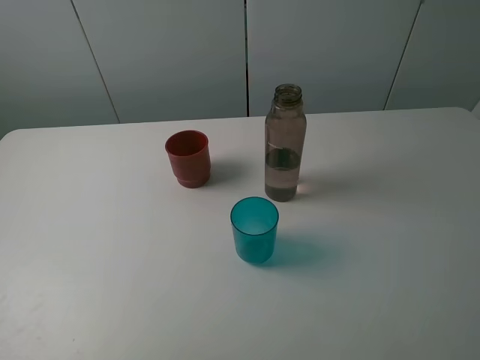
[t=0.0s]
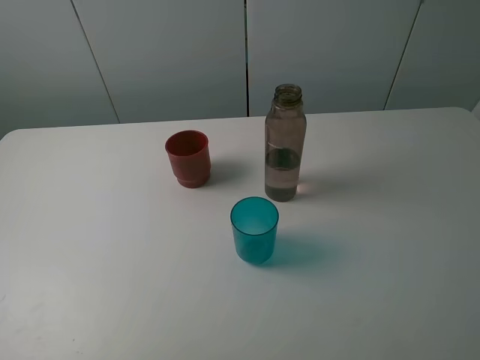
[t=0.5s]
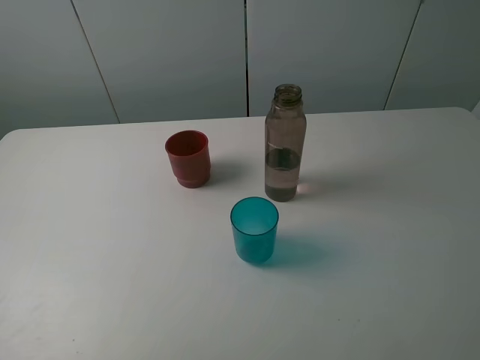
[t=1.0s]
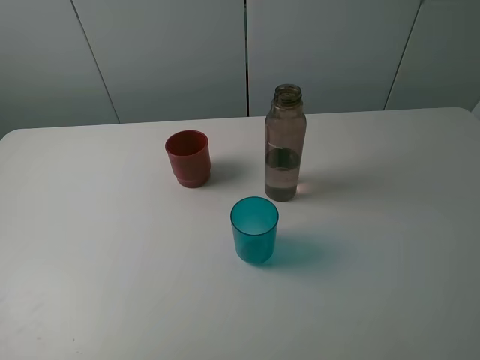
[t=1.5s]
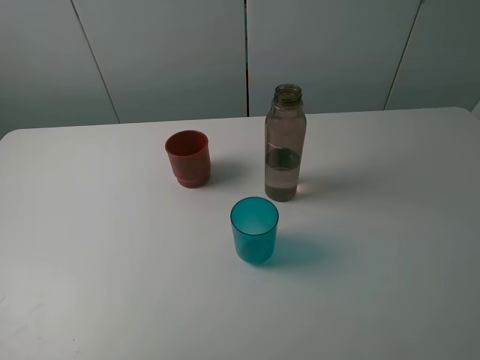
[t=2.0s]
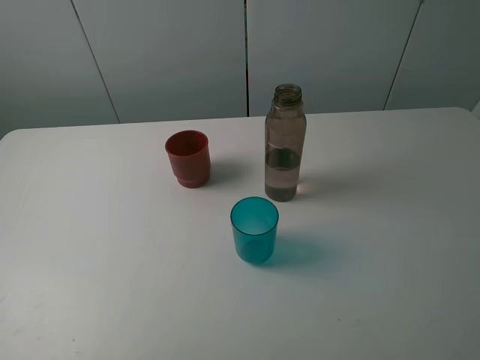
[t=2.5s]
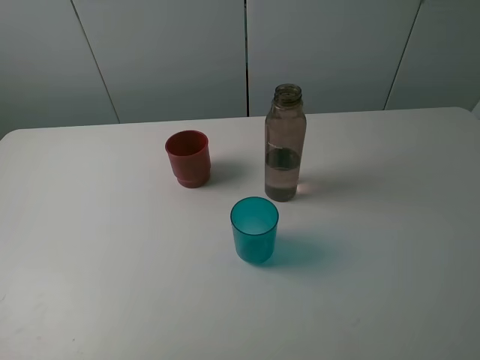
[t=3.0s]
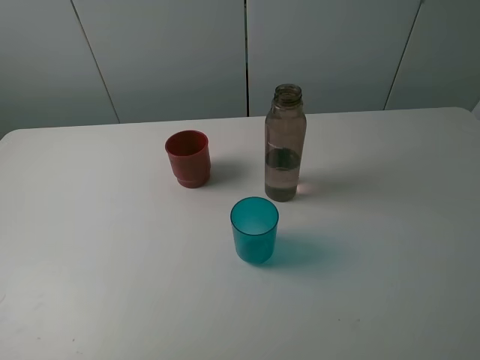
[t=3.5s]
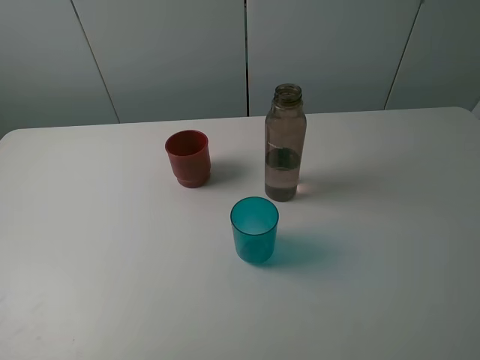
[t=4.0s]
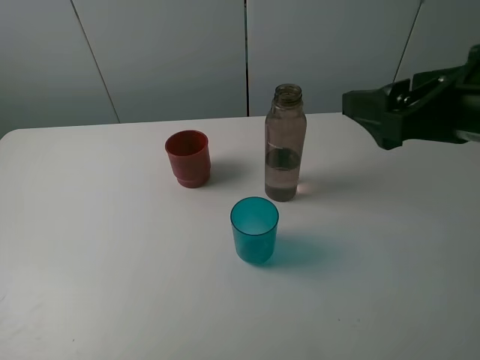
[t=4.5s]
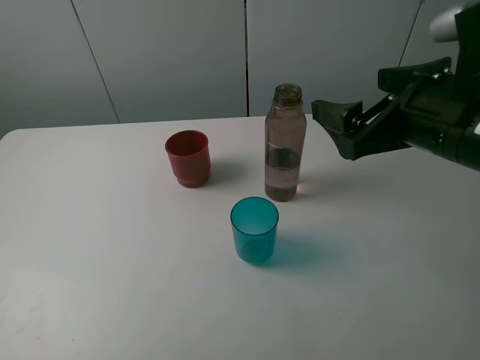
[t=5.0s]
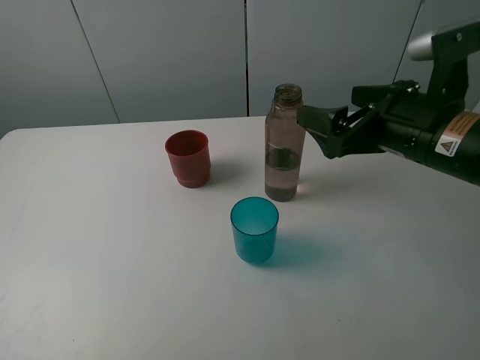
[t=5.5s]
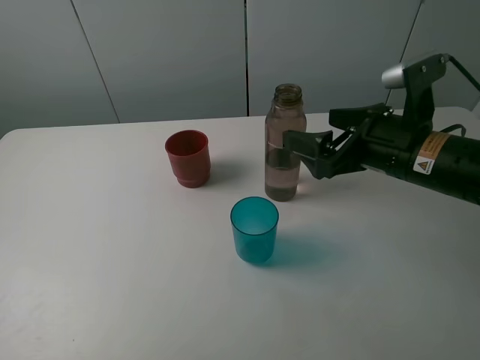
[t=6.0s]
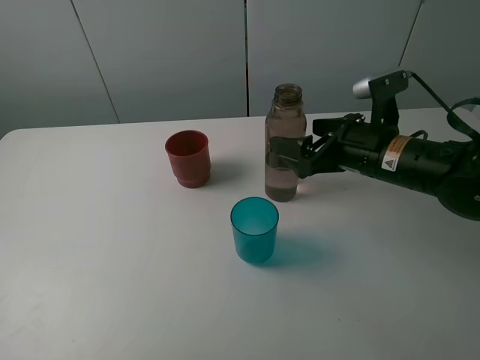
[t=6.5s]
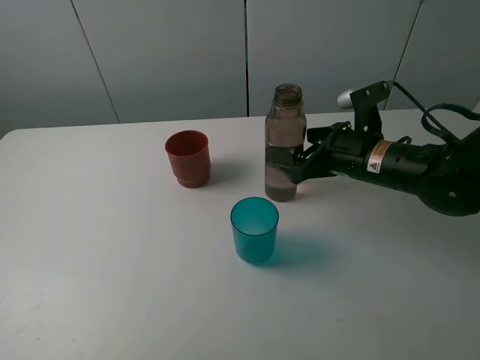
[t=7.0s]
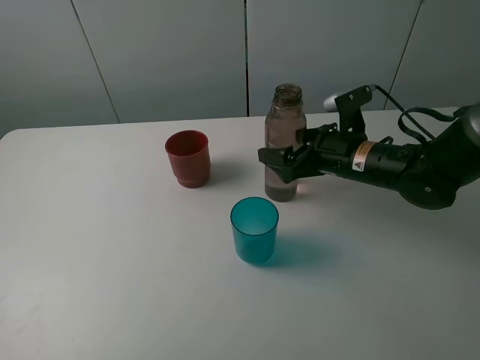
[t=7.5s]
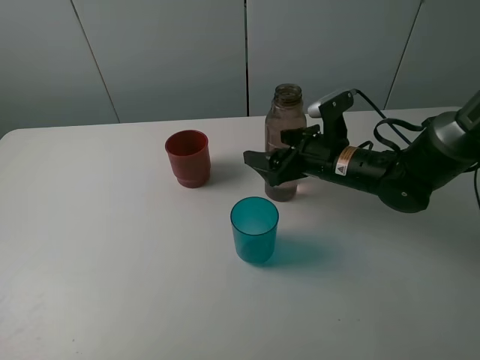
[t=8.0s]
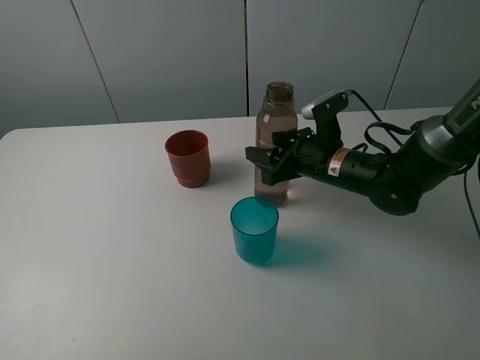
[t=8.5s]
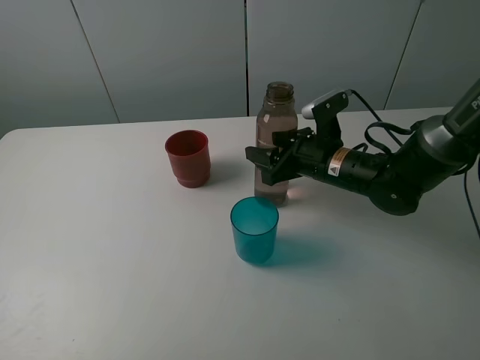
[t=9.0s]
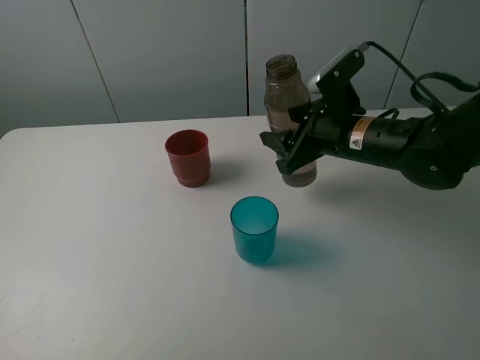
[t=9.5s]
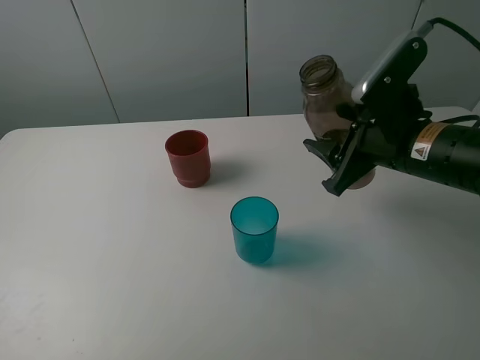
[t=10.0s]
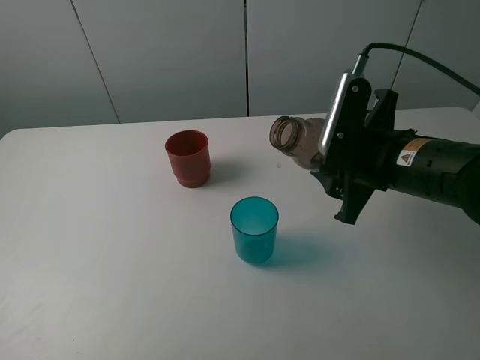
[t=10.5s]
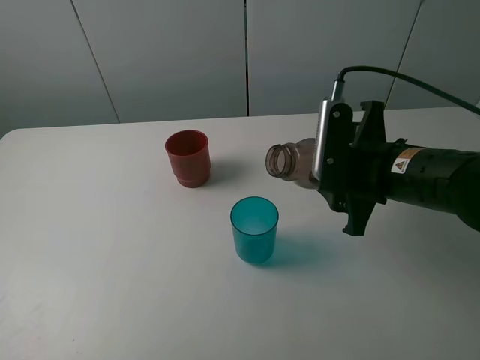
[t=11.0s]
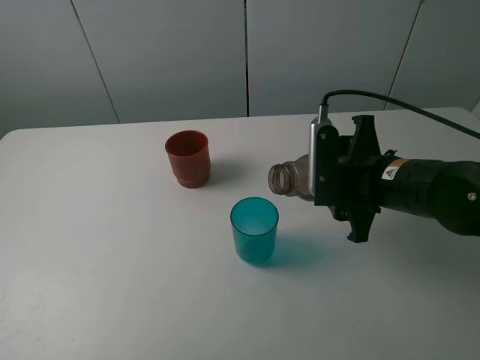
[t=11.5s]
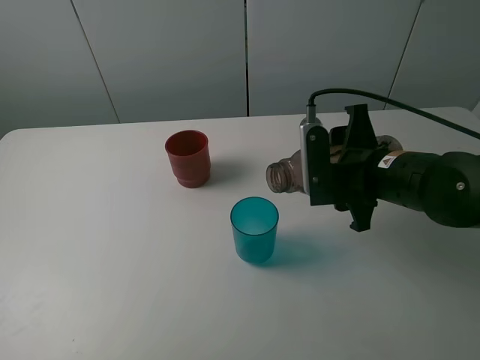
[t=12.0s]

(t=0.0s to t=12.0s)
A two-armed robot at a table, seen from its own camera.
Task of the whole recording: pick up the bottle and pour water into the cup, then pick up the cup containing water and pour it into another cup.
Step, t=0.0s - t=8.0s: Grasp the brown bottle with the right gripper.
t=0.0s - t=2.0s: Neither gripper changes place.
t=4.0s - t=6.0s: The right gripper travels downward, forward and to the left by some 25 cm.
t=6.0s - t=8.0s: The right gripper shifts about 10 cm downward and forward.
t=8.0s - t=10.0s: The right gripper shifts some 10 cm upward and backward, and closes.

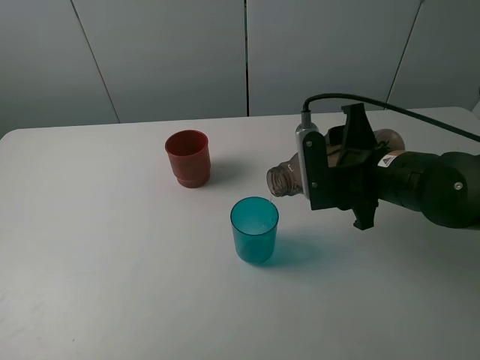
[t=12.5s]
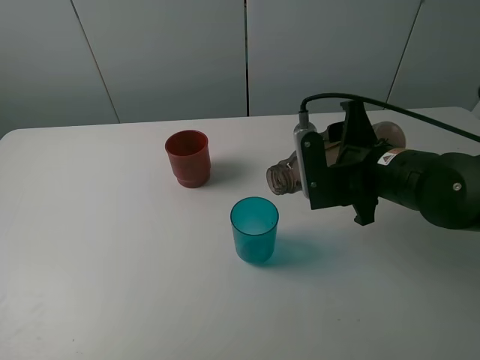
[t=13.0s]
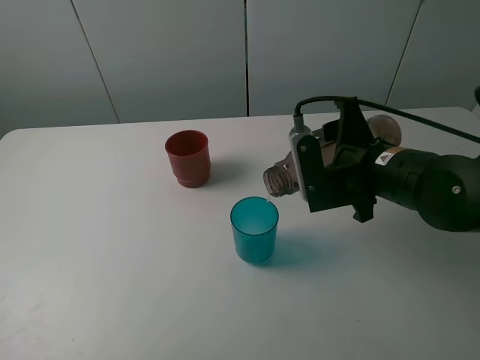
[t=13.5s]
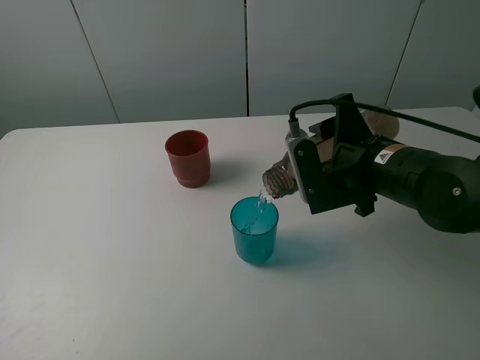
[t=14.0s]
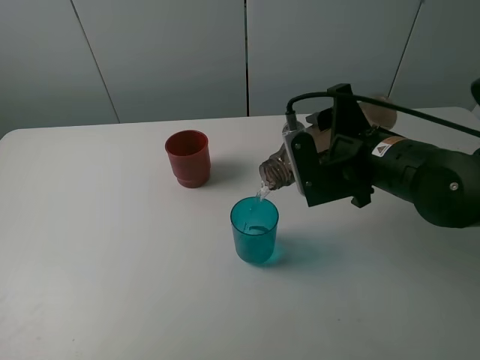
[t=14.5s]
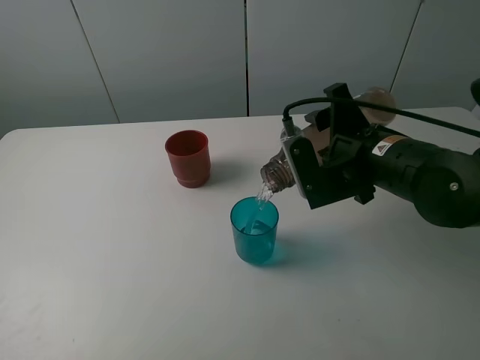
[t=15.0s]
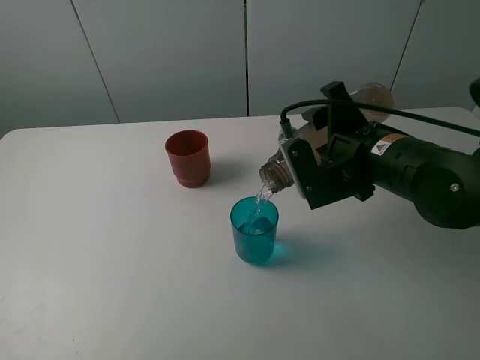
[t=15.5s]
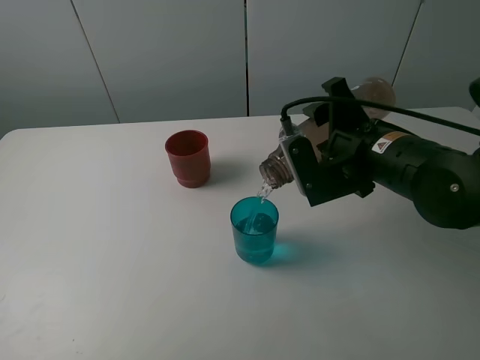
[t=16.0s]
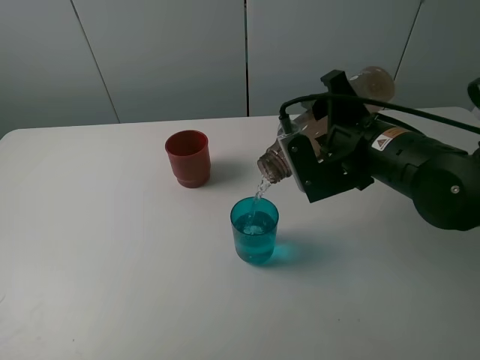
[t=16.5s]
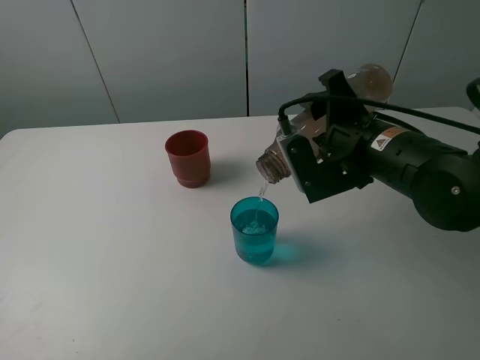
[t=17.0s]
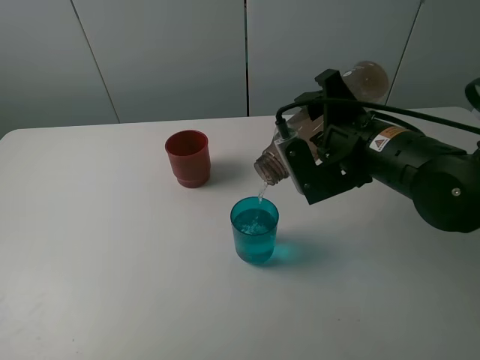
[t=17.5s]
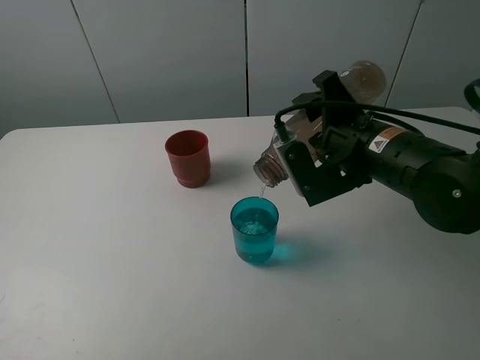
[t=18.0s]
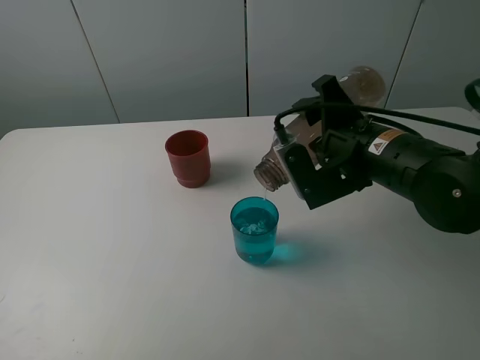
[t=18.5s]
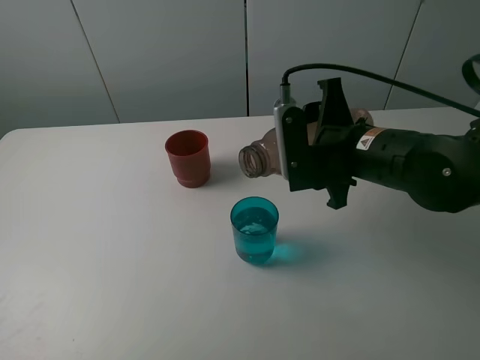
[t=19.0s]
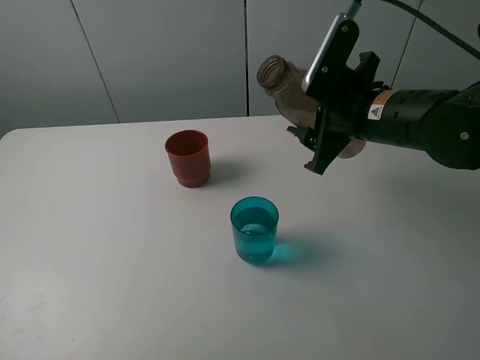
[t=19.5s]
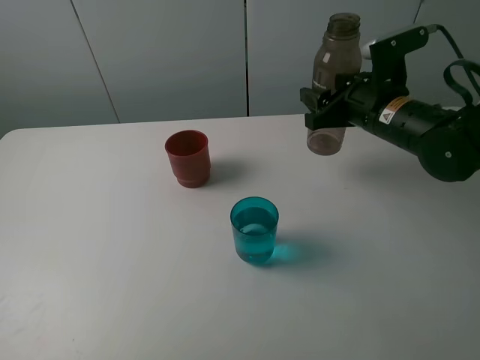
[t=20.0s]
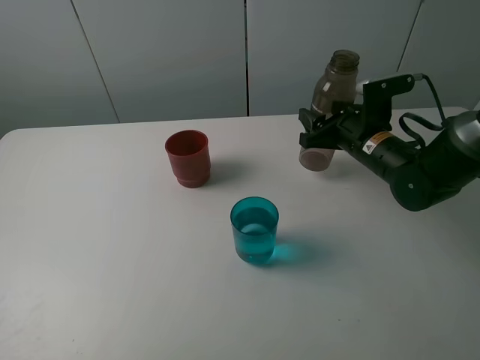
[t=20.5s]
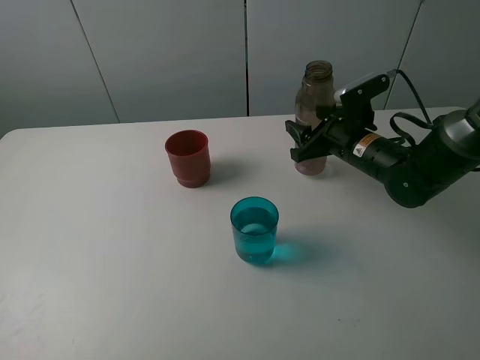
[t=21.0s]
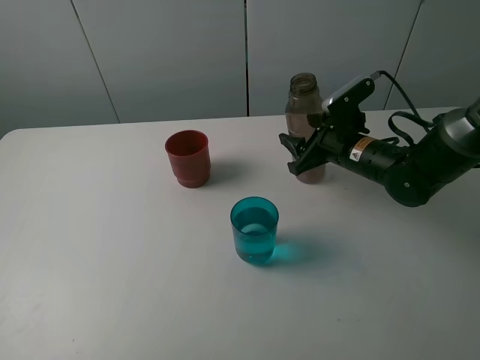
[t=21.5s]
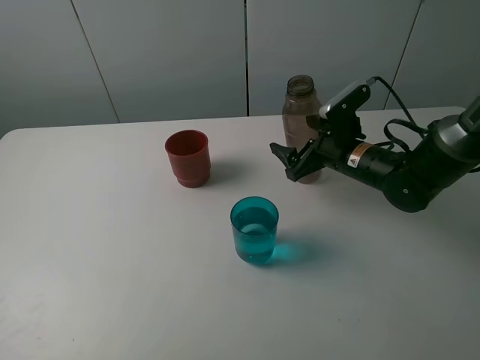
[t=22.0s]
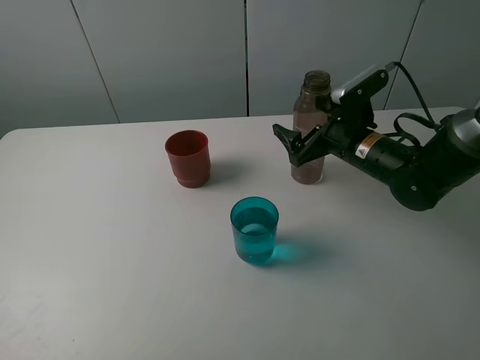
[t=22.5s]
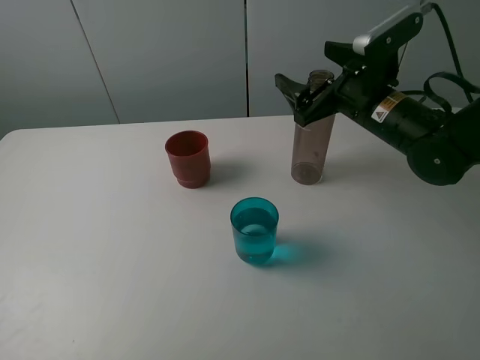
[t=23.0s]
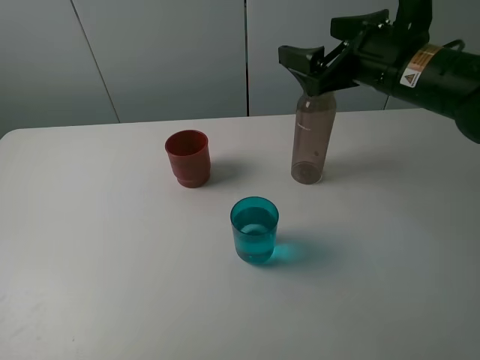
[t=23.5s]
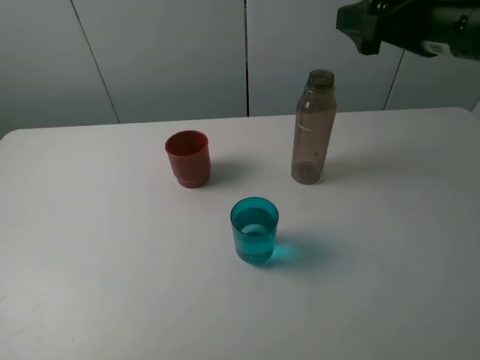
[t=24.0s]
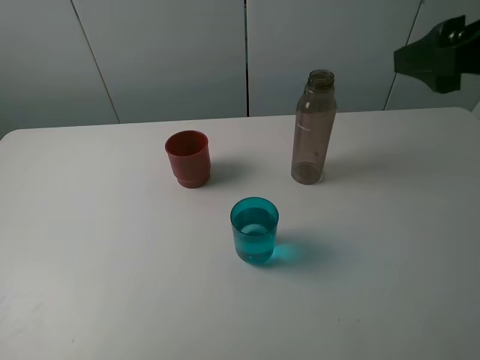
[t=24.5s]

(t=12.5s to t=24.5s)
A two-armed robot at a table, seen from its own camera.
Task of the whole recording: pick up the bottle and pour water into the cup, then pick up the cup containing water and pour it into another cup.
Step, t=12.5s - t=19.0s: Pour water from brown bottle to blue cup with the right gripper.
Step, t=19.5s - t=22.0s: Place the brown bottle with the right gripper.
t=12.5s - t=14.5s: There are only small adjustments of the grippers.
t=14.5s - t=16.5s: There are only small adjustments of the grippers.
t=16.5s - t=18.5s: The two grippers keep their place.
t=18.5s - t=20.5s: The right gripper heads forward and downward, covering roughly 15 cm.
t=20.5s - t=22.5s: The right gripper opens its fingers.
t=22.5s - t=24.5s: The right gripper moves upward and backward, about 25 cm.

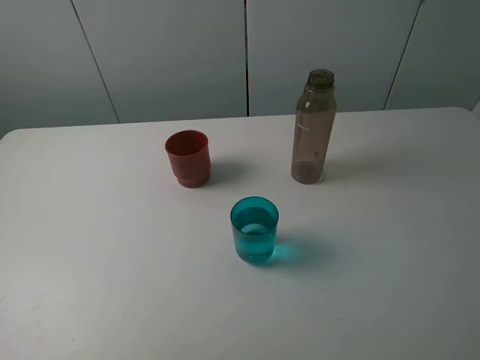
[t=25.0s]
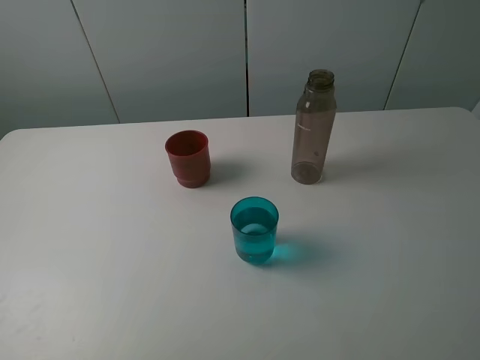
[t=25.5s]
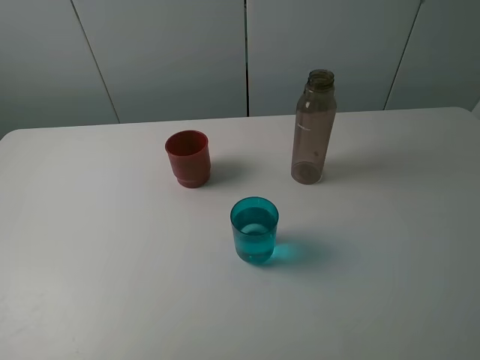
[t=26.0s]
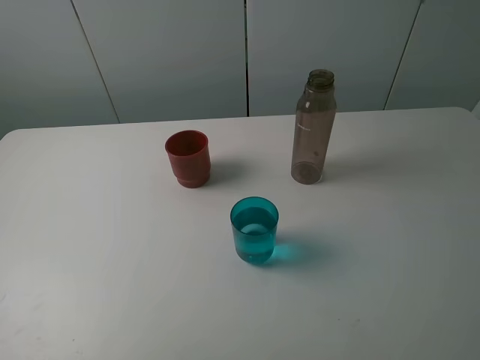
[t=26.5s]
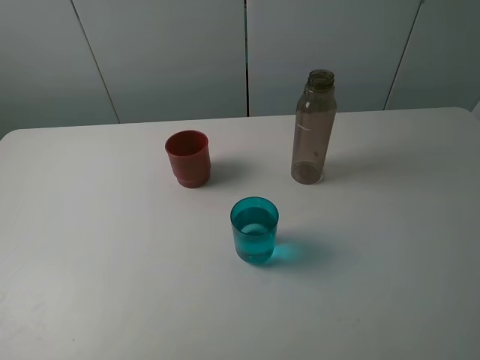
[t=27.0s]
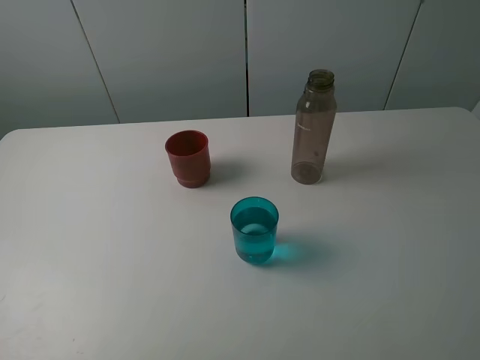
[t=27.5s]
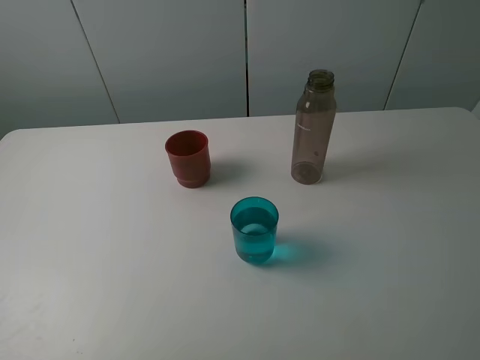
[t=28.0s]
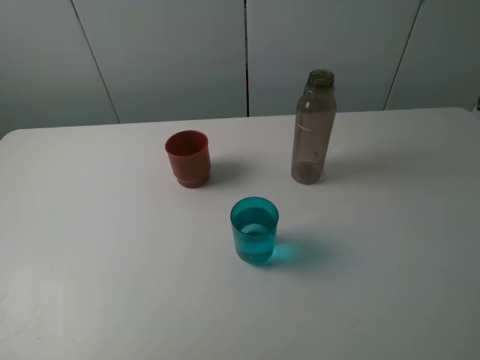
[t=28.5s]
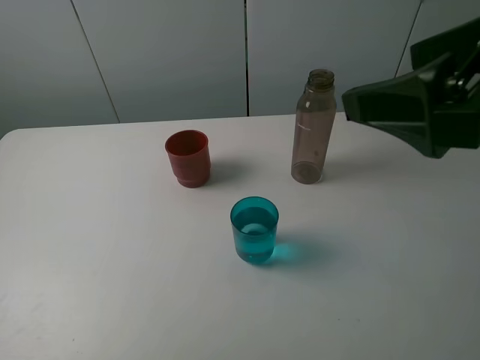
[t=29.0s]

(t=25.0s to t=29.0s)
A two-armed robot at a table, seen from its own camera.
Task of the whole recording: pick up the bottle and pour water into the cup, then pick up the cup containing water and pour it into another cup.
t=27.0s - t=29.0s: The right gripper goes roughly 15 cm forward and to the left.
